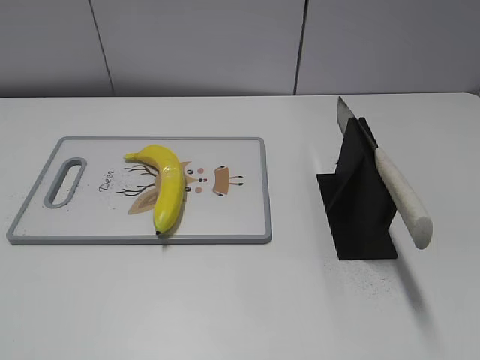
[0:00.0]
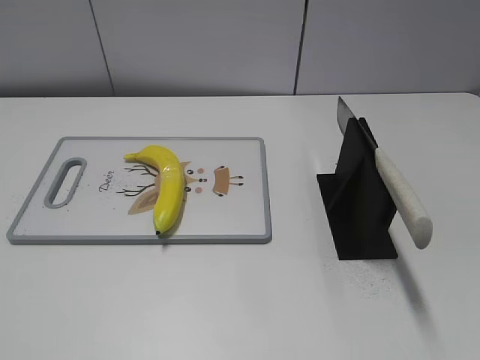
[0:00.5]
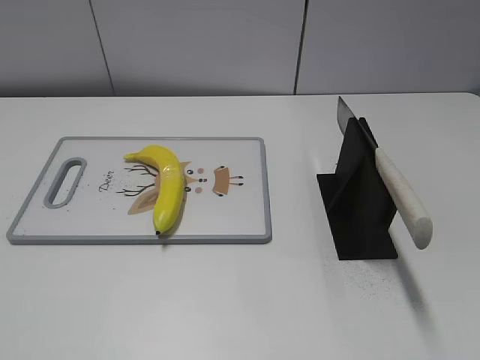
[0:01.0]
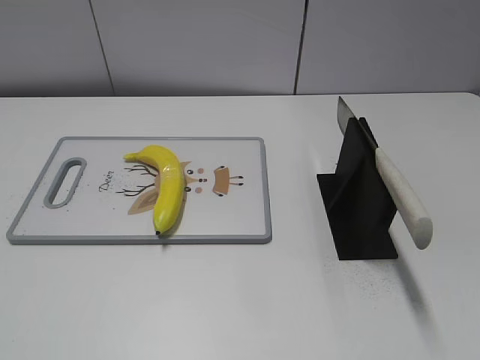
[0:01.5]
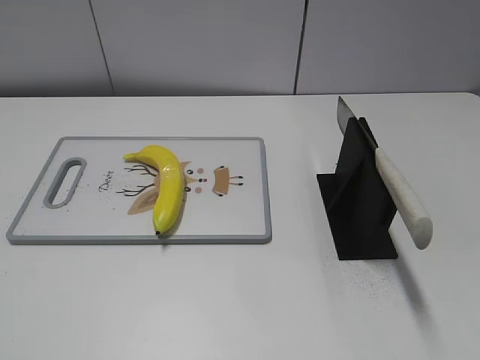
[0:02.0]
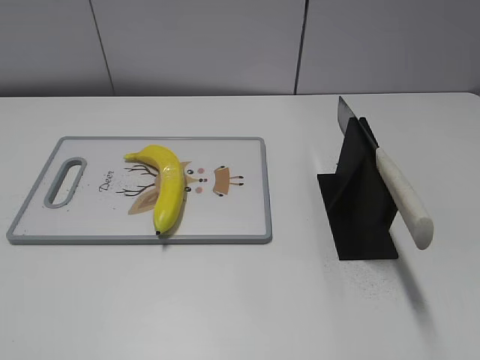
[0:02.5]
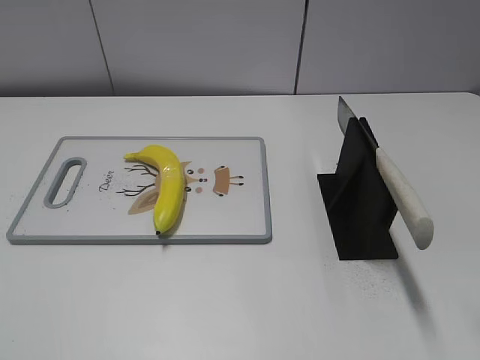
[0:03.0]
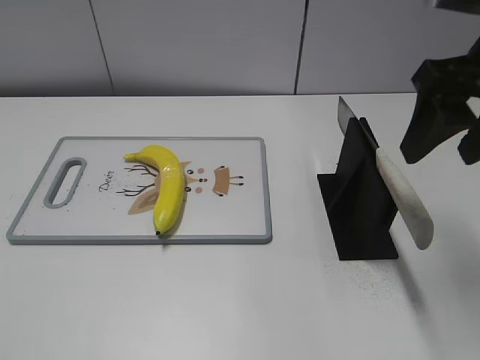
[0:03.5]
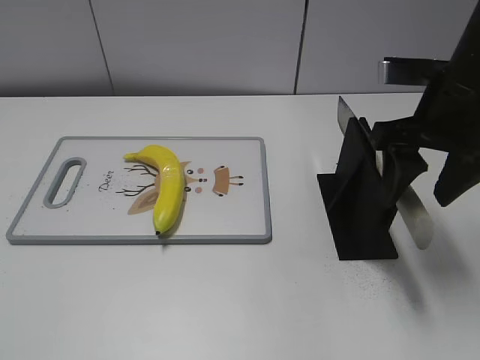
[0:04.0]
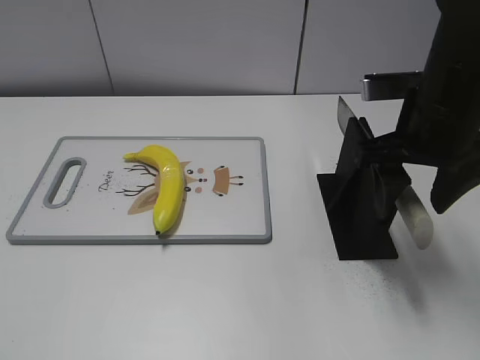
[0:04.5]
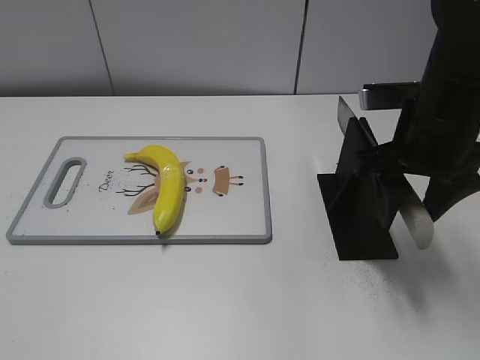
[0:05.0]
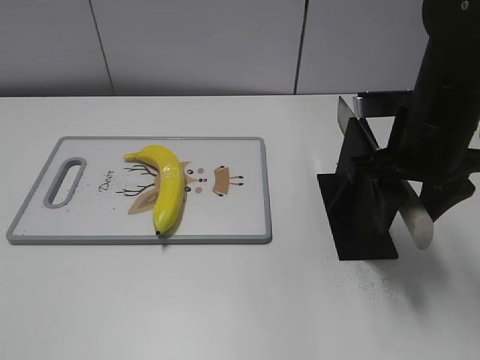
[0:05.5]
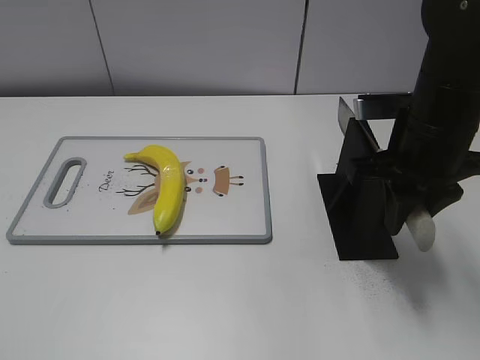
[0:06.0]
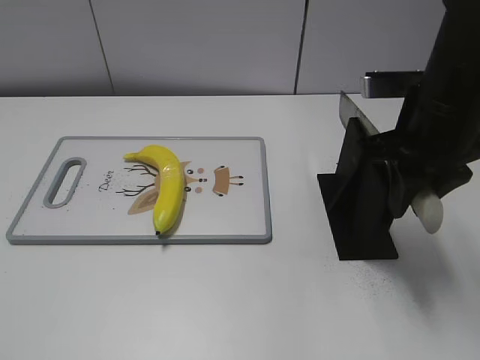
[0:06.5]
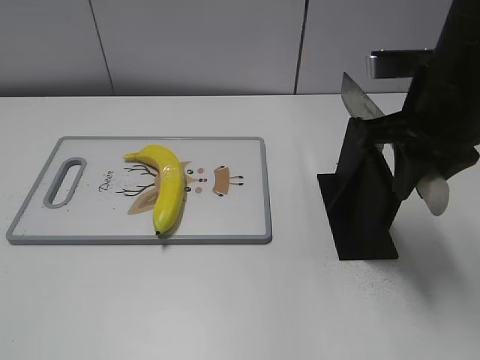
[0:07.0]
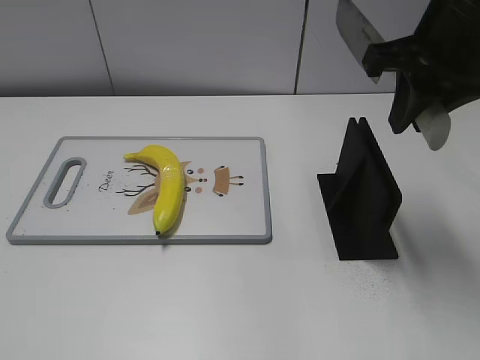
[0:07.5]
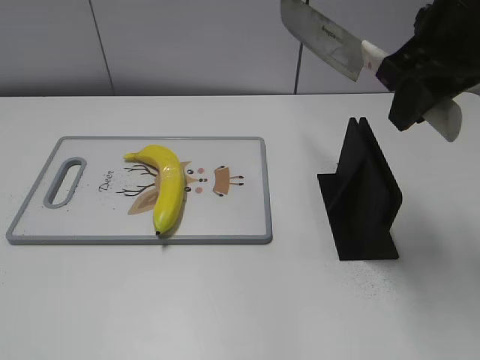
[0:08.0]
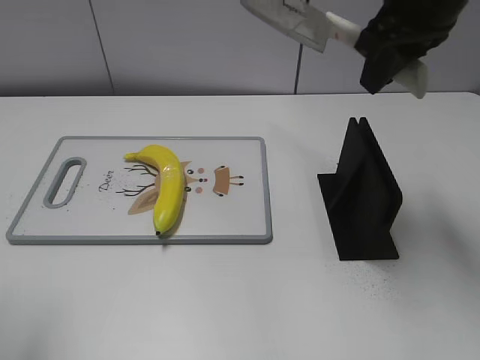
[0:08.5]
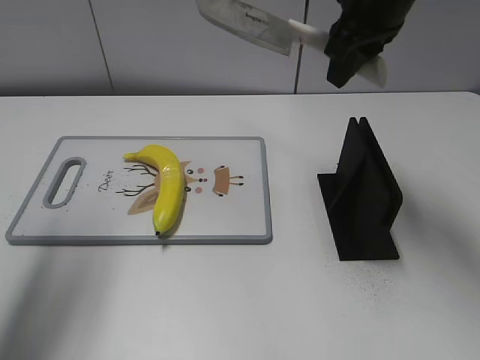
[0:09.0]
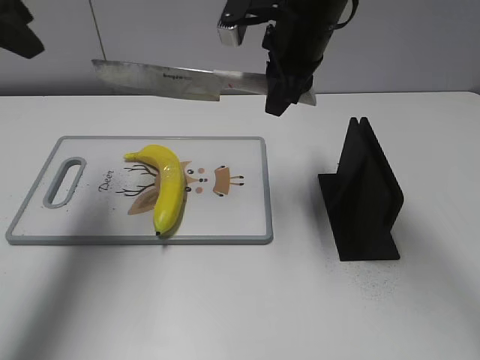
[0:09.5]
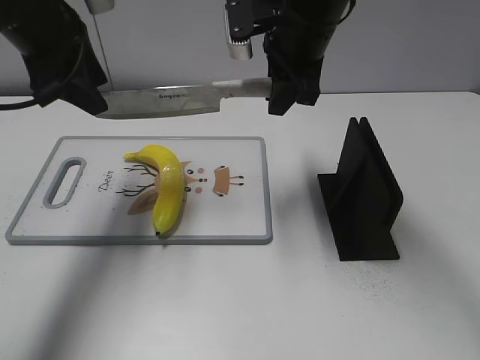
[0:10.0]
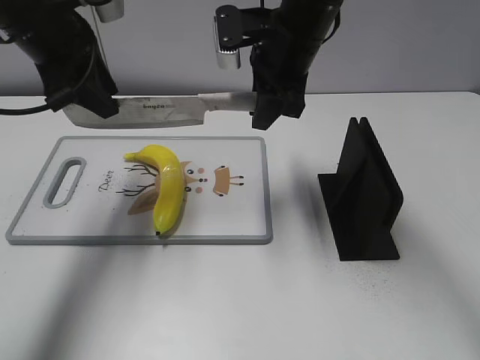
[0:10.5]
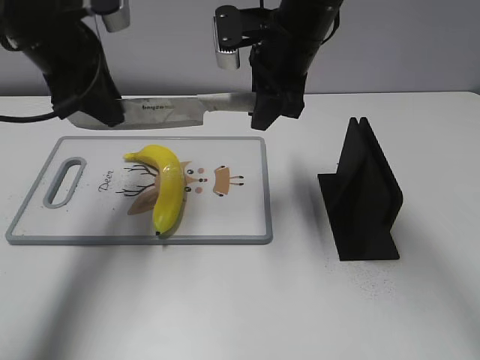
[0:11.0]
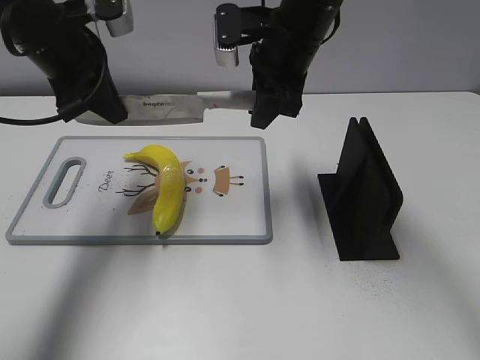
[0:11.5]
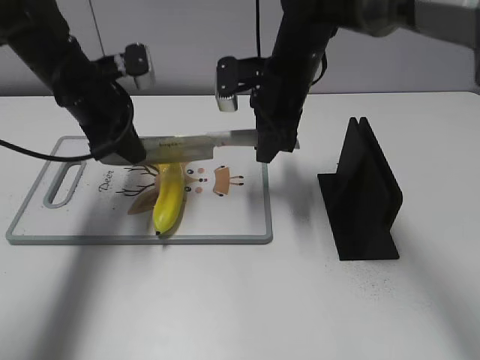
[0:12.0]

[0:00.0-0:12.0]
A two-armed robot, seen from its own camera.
Task of the whole recording: cut plastic banana.
Step, 0:00.0 to 0:07.5: Grab the knife handle with your right hand.
0:02.0 to 0:04.0: The right gripper is displaced forward by approximately 30 cm.
0:04.0 to 0:06.0: The right gripper closes up.
0:06.0 to 0:08.0: The right gripper goes roughly 10 cm upward.
0:08.0 to 0:10.0: The right gripper goes roughly 15 cm forward, to the left and downward; the left gripper is displaced forward by roughly 35 cm.
0:10.0 to 0:12.0: The two grippers go roughly 10 cm downward. The left gripper closes up.

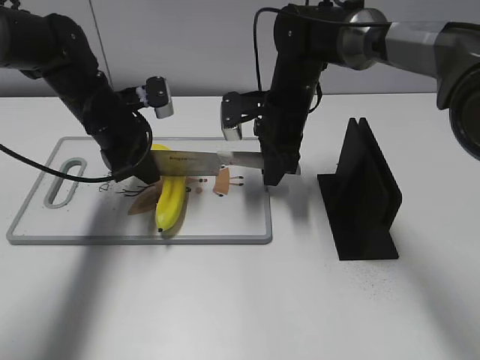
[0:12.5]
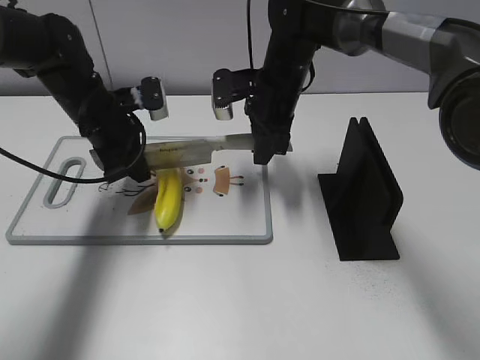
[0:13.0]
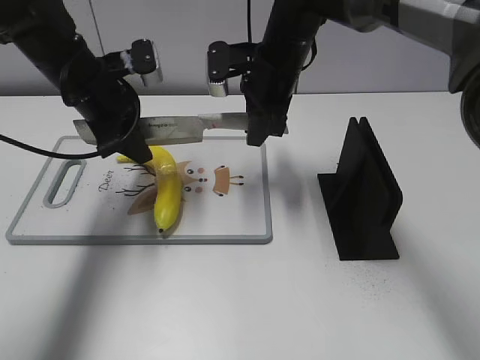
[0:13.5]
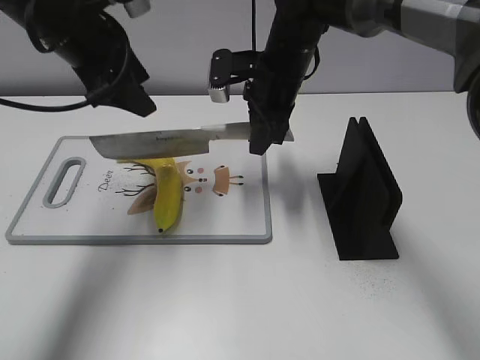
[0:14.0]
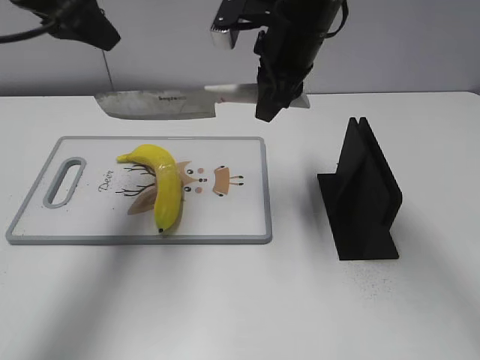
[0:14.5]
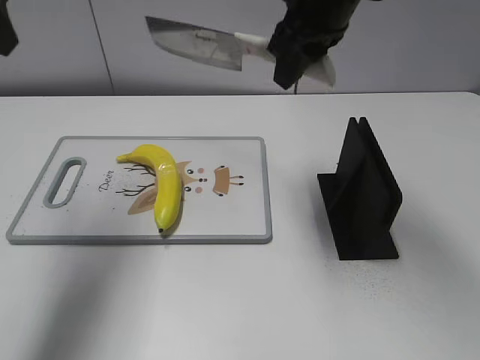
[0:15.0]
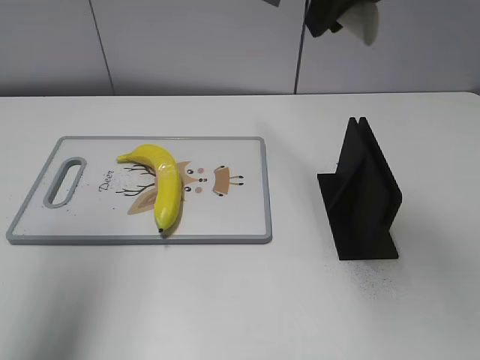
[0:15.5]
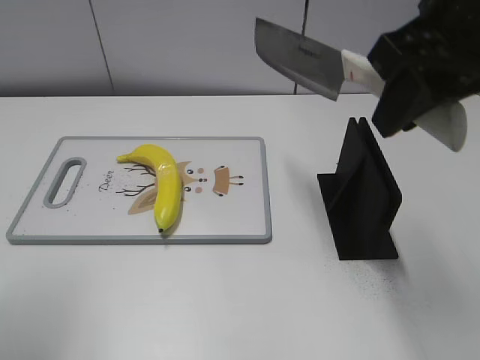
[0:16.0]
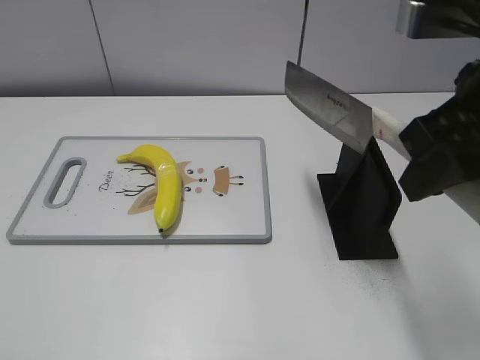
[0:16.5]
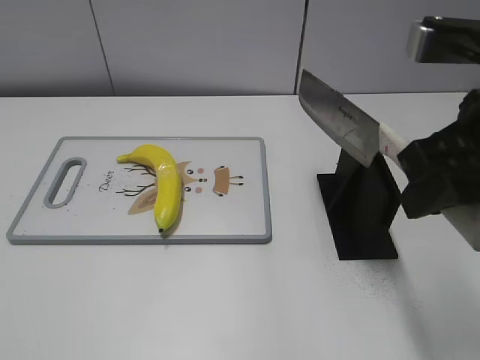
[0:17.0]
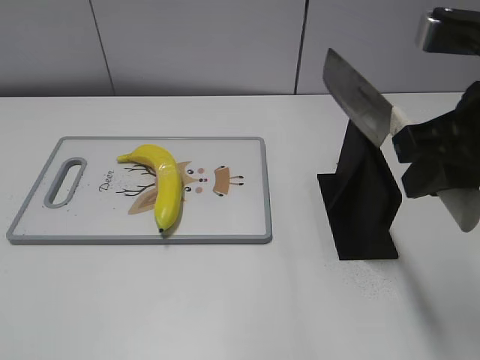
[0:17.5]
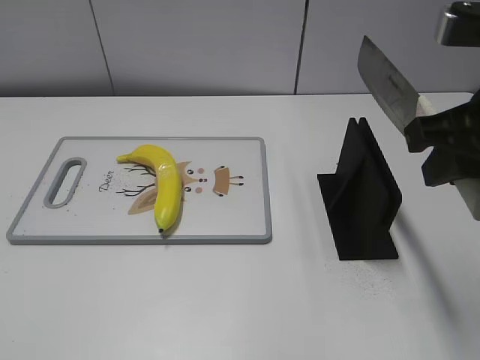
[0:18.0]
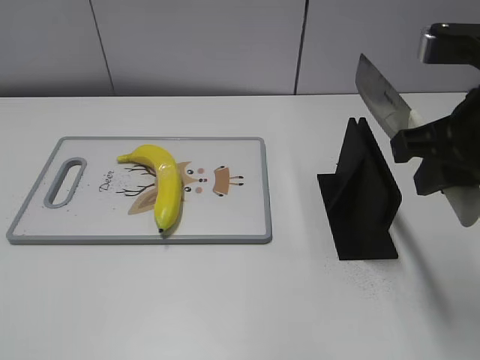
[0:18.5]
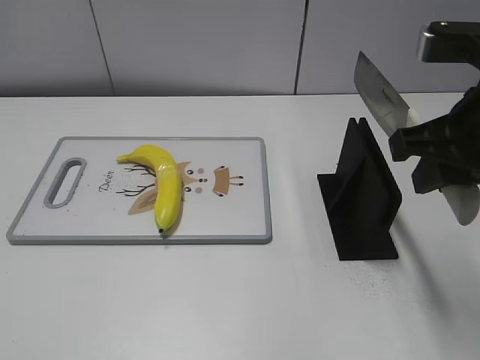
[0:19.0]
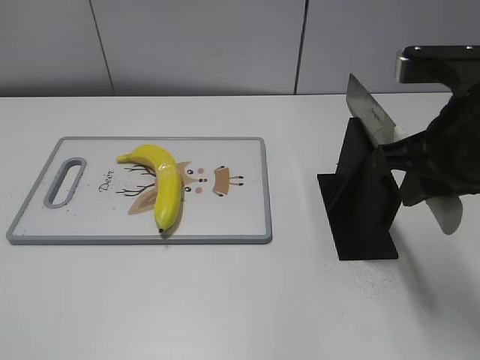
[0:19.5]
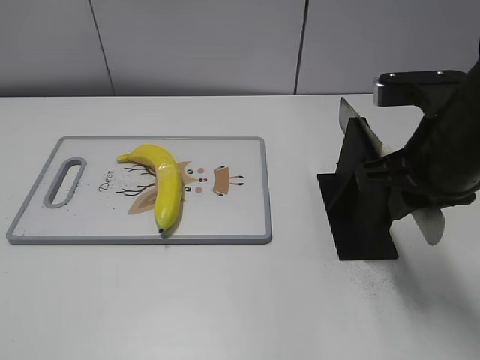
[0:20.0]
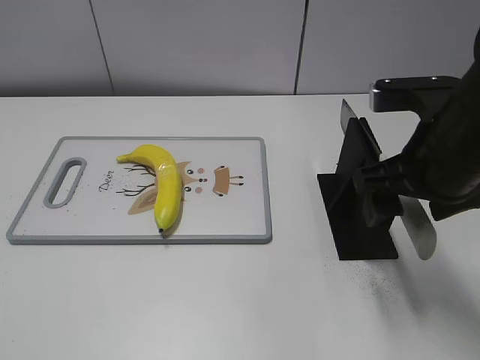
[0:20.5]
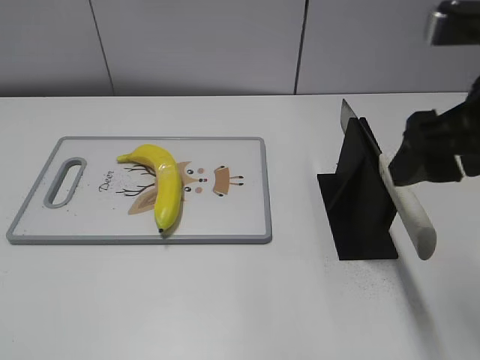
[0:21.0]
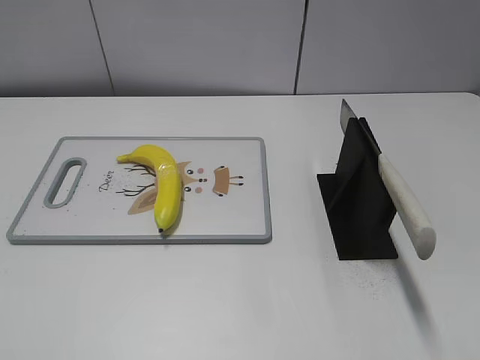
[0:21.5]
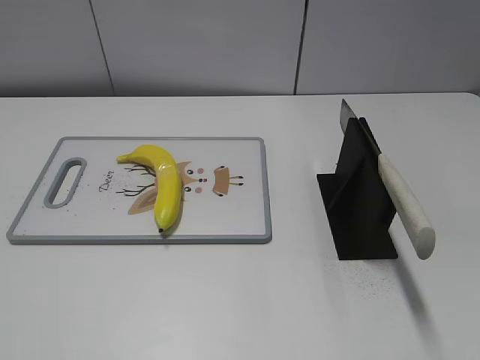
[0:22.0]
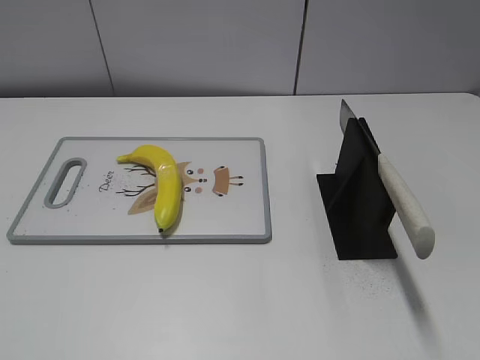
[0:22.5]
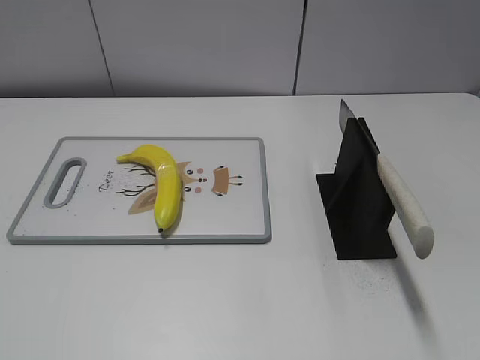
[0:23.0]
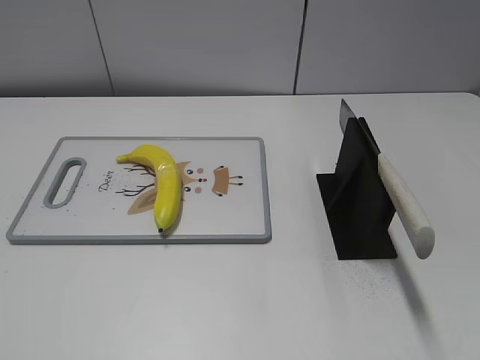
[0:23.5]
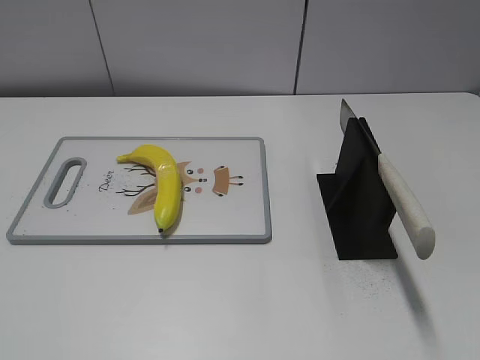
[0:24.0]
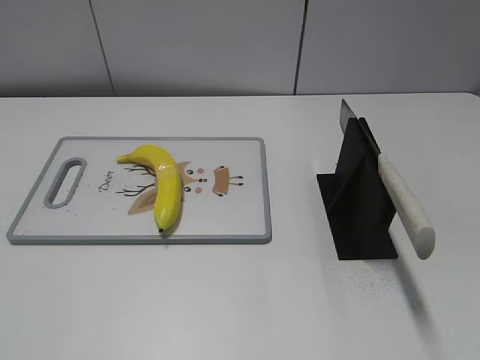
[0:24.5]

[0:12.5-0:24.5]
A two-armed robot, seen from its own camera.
Task of the whole recording: cut plastic banana.
Step, 0:14.5 to 0:15.5: Cut the banana with your right hand.
Step, 0:16.0 to 0:17.0: Lift the knife with your right hand.
Step, 0:17.5 to 0:24.5: Place the knife on the storage rack with your right hand.
0:12.5 to 0:14.5: The right gripper travels upward by roughly 15 cm. The left gripper shifts roughly 20 cm upward, and opens its fingers.
0:14.5 to 0:16.5: The right gripper shifts approximately 25 cm backward and to the right. The left gripper travels backward by approximately 30 cm.
0:16.5 to 0:18.5: The left gripper heads backward and downward, covering approximately 10 cm.
0:18.5 to 0:20.5: The right gripper heads downward, covering roughly 5 cm, and opens up.
0:20.5 to 0:22.5: The right gripper travels backward and to the right by some 25 cm.
